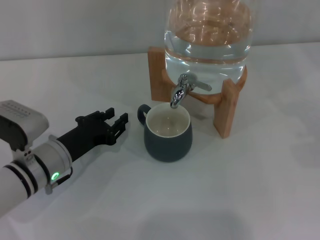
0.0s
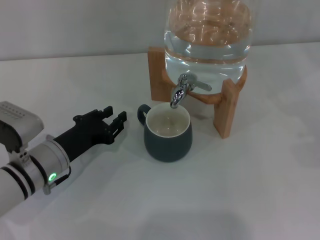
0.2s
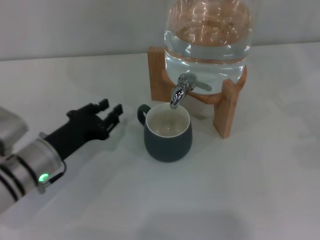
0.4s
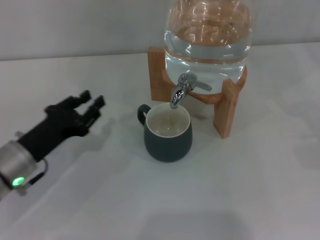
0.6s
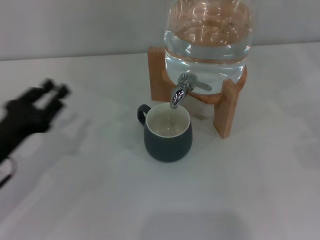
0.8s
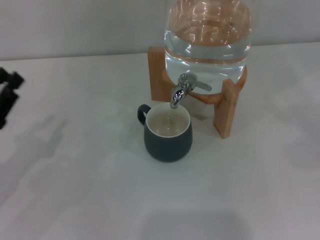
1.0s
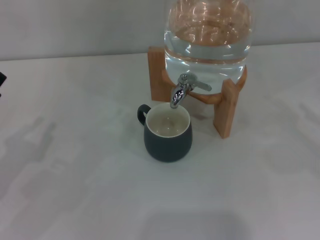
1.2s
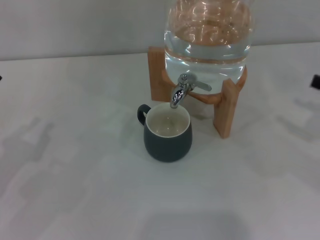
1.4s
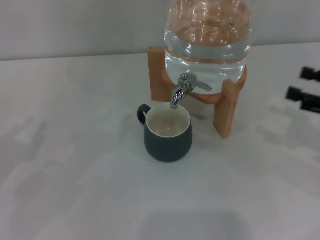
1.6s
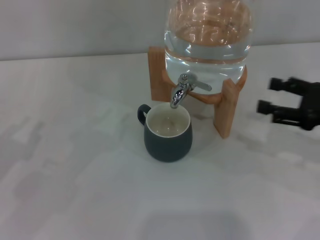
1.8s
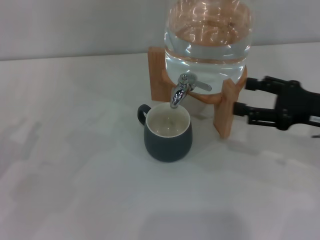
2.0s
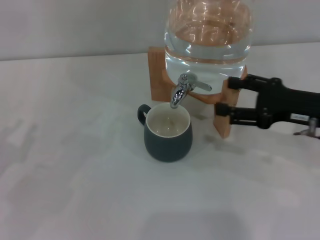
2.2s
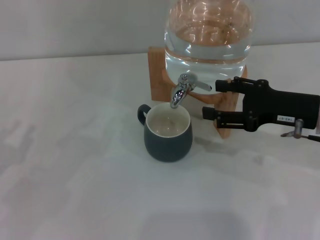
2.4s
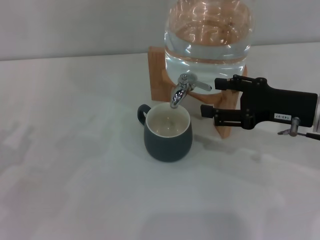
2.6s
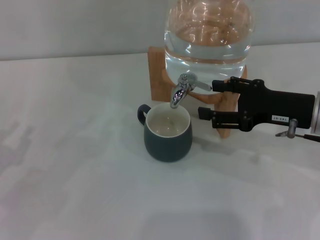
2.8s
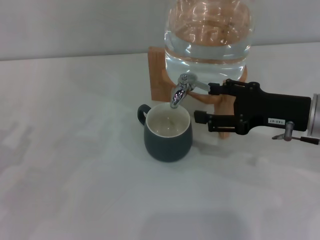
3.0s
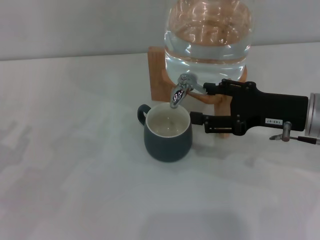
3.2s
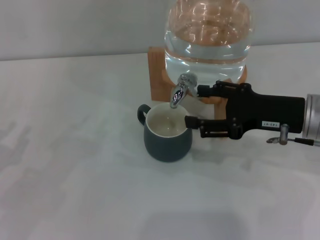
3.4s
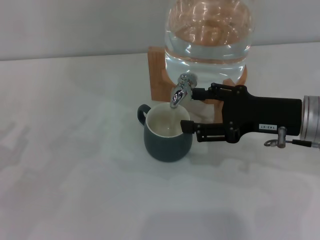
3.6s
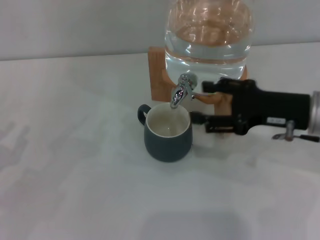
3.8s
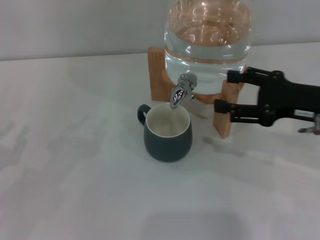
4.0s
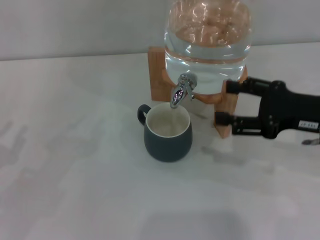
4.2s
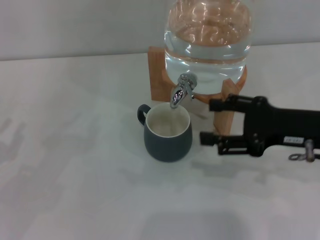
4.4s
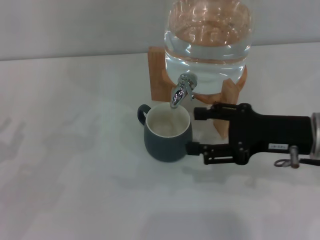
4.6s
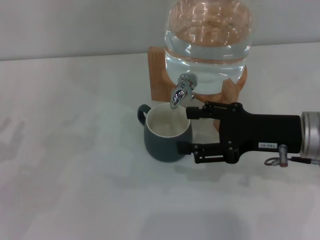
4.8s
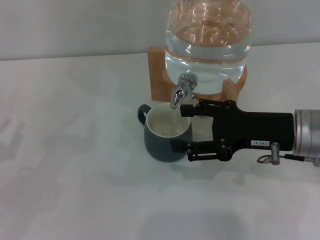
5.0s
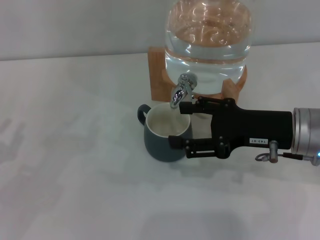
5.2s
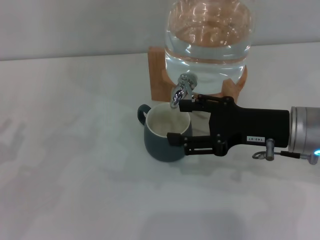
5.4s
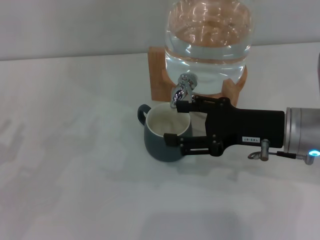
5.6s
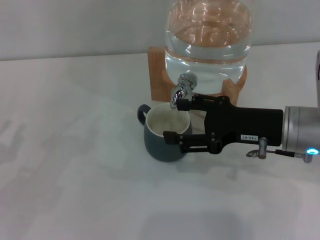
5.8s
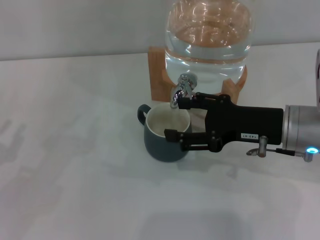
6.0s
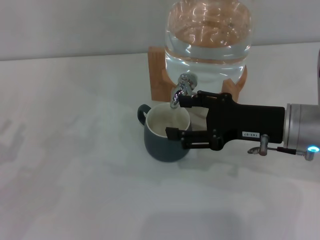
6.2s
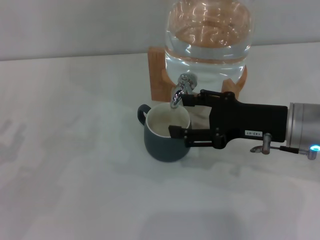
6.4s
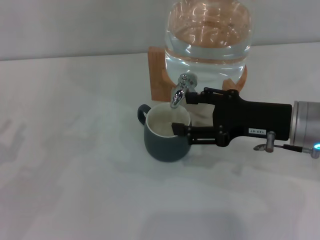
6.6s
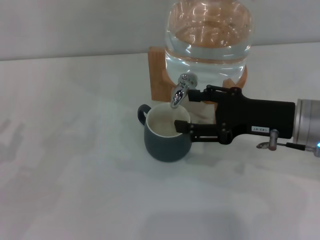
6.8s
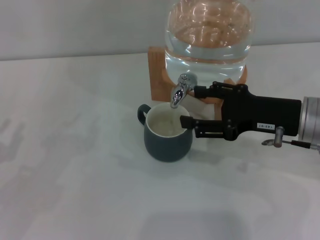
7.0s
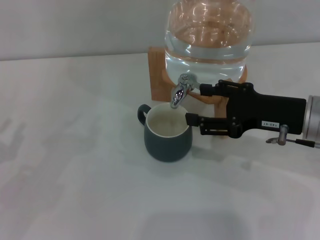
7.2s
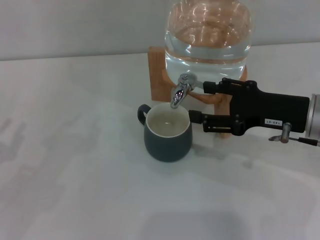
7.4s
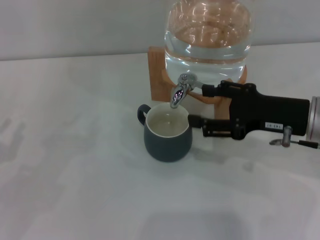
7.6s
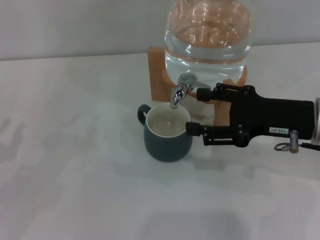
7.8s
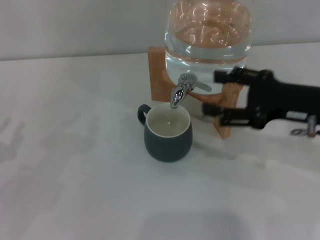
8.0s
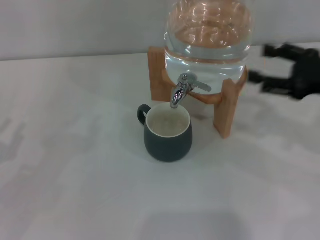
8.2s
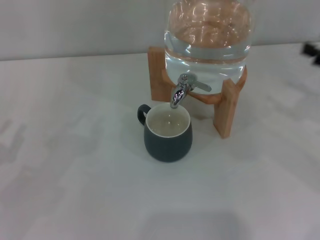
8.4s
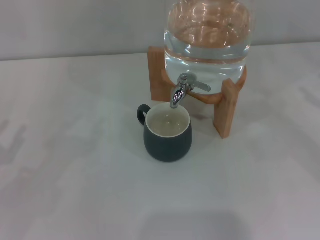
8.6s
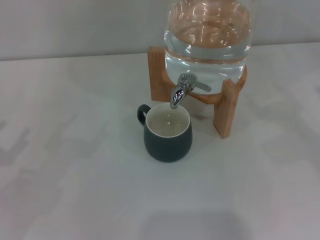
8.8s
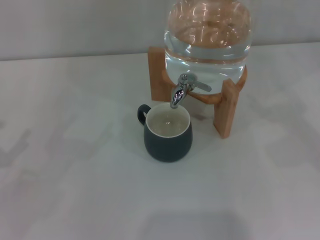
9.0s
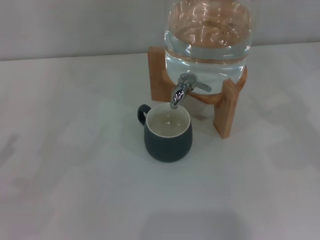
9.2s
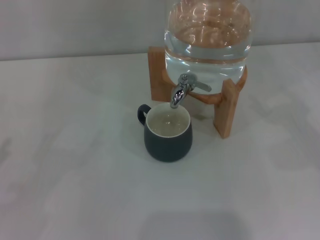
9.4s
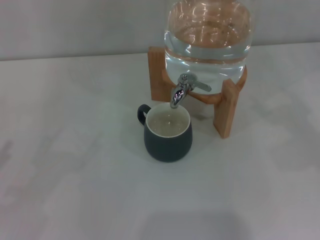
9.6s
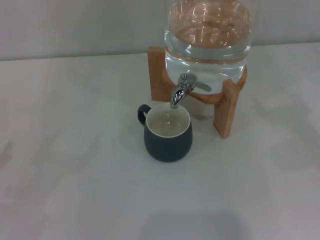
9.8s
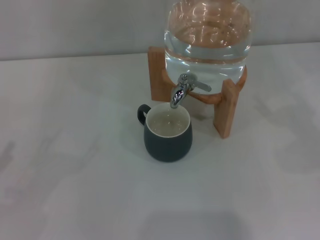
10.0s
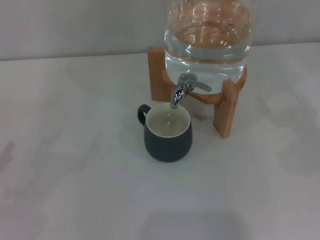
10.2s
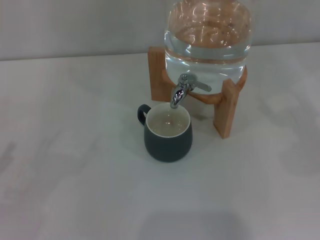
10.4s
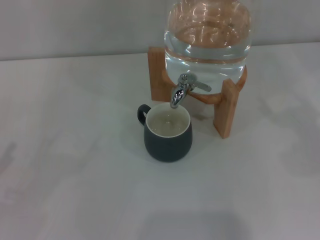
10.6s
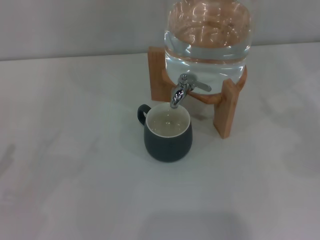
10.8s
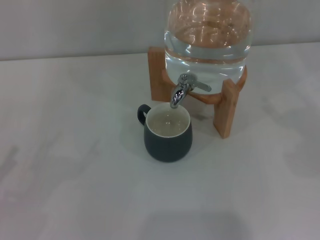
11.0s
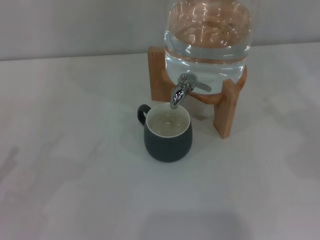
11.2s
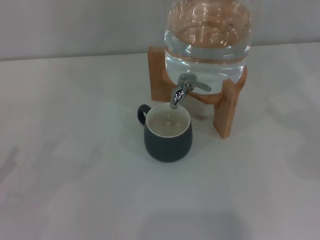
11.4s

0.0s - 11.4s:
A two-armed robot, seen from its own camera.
Task of the whole recording: the left gripper pick up the black cup and place it horizontally under the faucet, the right gripper turn on the faucet to fill the cup, and then turn off the faucet.
Step, 0.2s - 3.6s: Open the dispenser valve and fill the cup with water with the right gripper.
Step, 4.0s - 7.6s: Close the dispenser valve with the right gripper.
0.0s - 1.4s: The right gripper shifts approximately 5 cm to the left; the left gripper travels to the left, backward and upward by about 15 cm.
1.4s - 2.8s: The right gripper heads to the left, covering about 15 cm.
2.8s - 4.2s: The grippers stay close to where they were, moving slightly.
4.2s - 5.6s: The right gripper moves to the left, about 5 cm.
5.6s - 7.2s: The grippers stay close to where they were, moving slightly.
7.2s - 8.6s: The right gripper shifts approximately 20 cm to the right.
